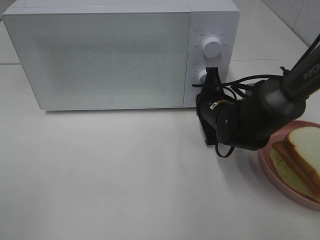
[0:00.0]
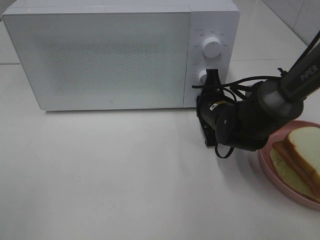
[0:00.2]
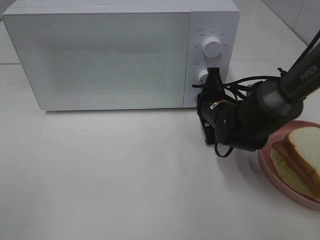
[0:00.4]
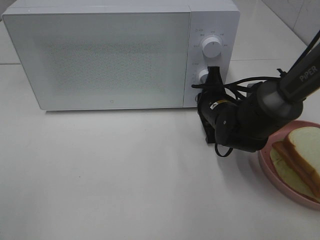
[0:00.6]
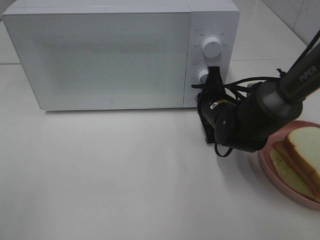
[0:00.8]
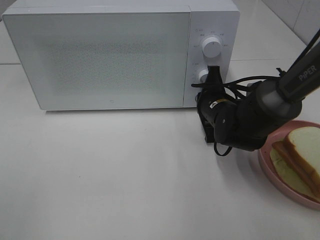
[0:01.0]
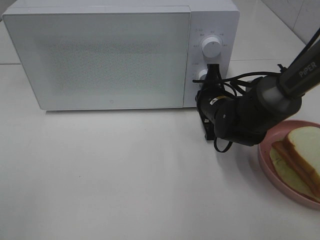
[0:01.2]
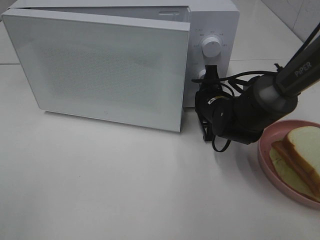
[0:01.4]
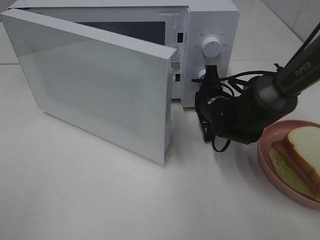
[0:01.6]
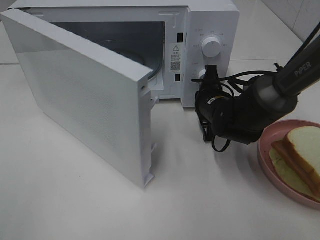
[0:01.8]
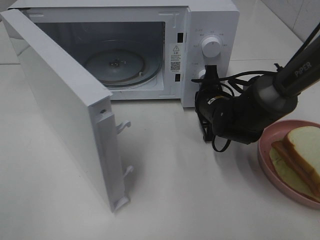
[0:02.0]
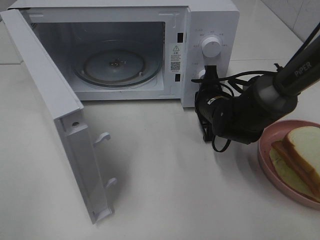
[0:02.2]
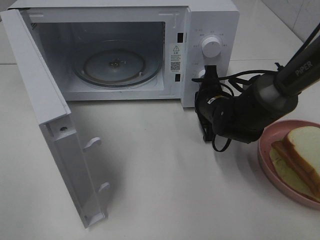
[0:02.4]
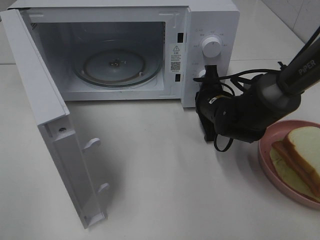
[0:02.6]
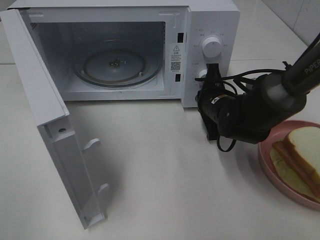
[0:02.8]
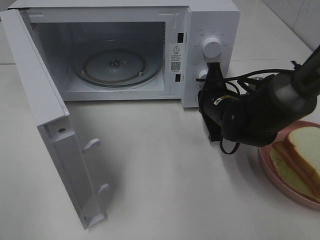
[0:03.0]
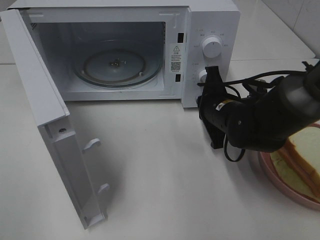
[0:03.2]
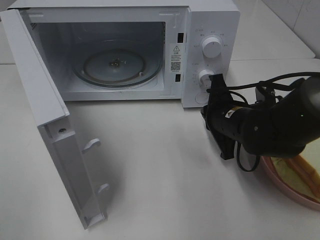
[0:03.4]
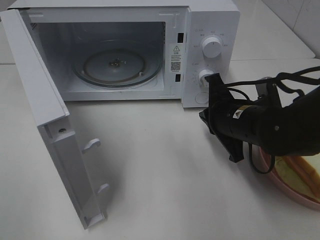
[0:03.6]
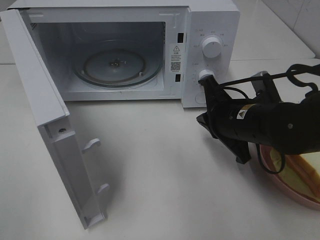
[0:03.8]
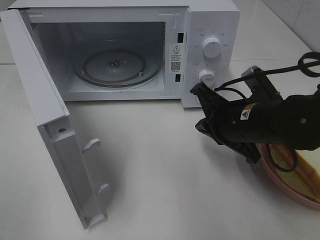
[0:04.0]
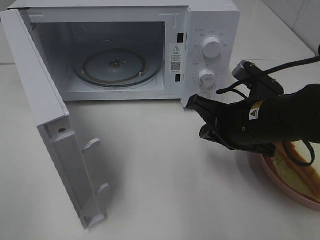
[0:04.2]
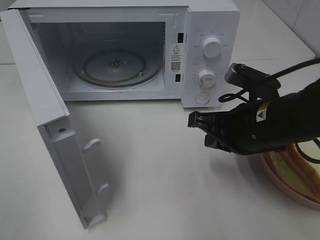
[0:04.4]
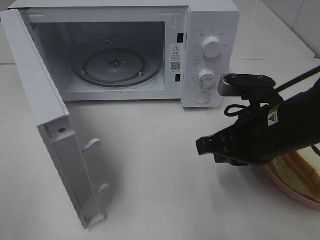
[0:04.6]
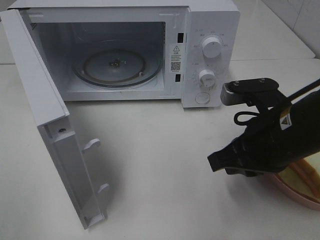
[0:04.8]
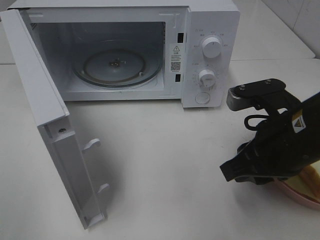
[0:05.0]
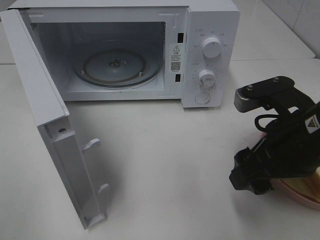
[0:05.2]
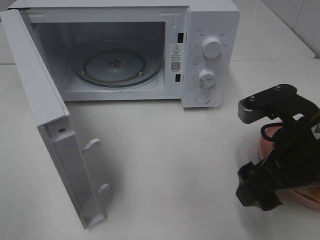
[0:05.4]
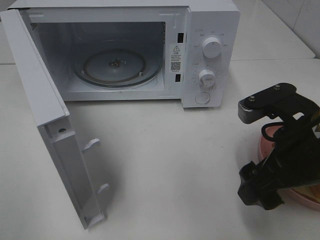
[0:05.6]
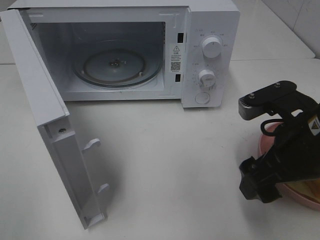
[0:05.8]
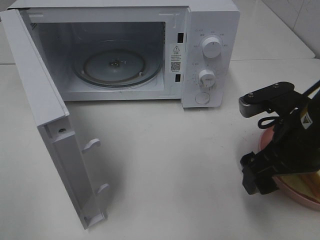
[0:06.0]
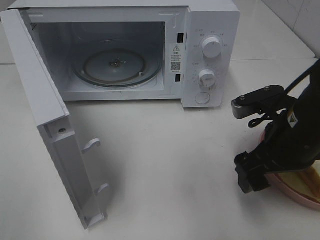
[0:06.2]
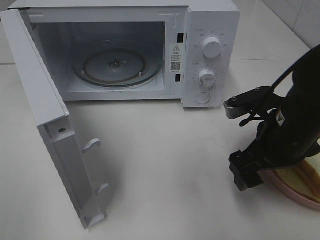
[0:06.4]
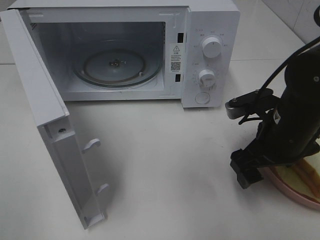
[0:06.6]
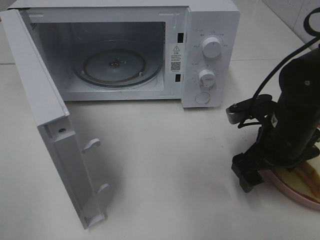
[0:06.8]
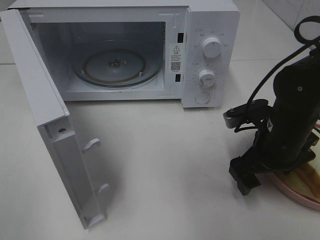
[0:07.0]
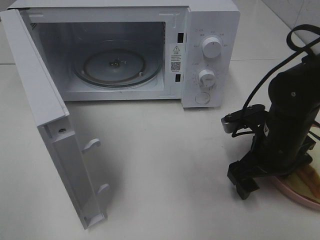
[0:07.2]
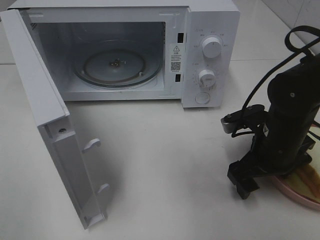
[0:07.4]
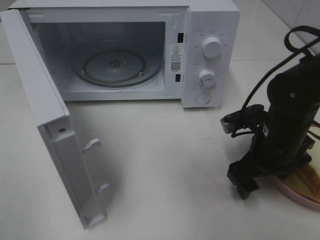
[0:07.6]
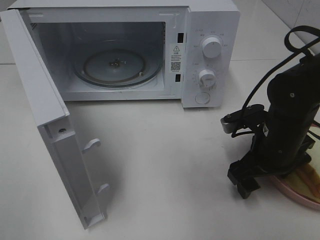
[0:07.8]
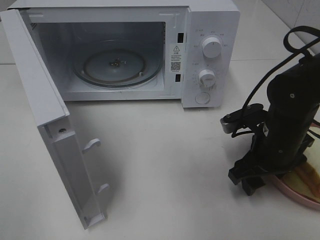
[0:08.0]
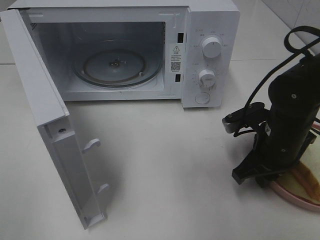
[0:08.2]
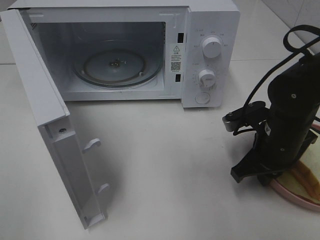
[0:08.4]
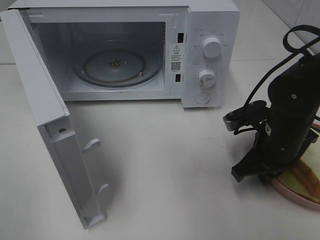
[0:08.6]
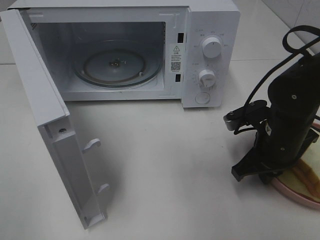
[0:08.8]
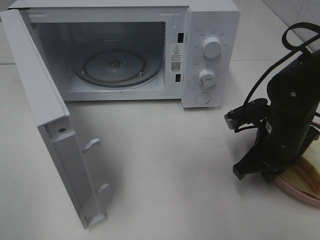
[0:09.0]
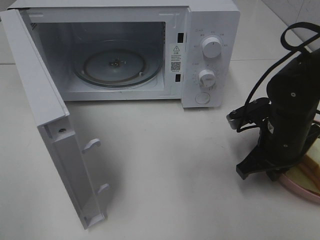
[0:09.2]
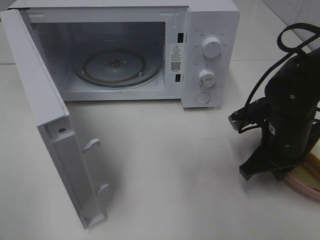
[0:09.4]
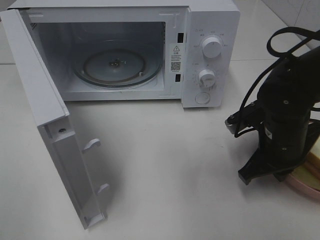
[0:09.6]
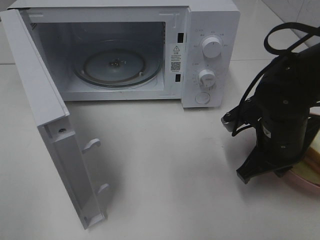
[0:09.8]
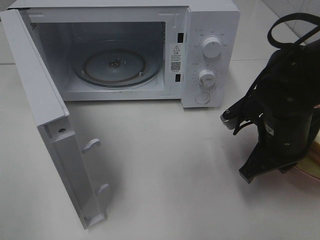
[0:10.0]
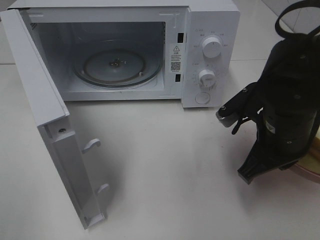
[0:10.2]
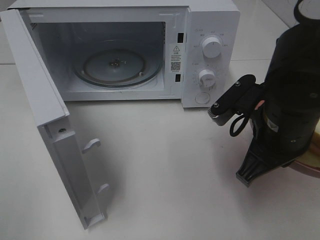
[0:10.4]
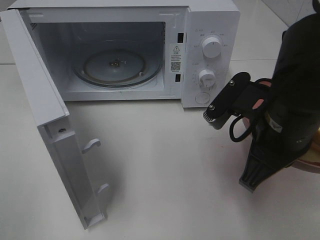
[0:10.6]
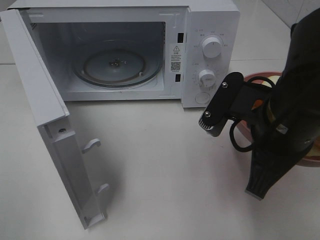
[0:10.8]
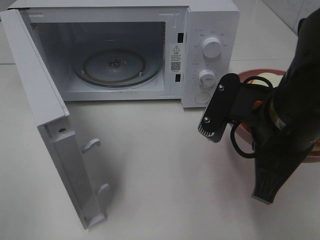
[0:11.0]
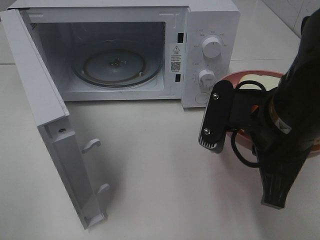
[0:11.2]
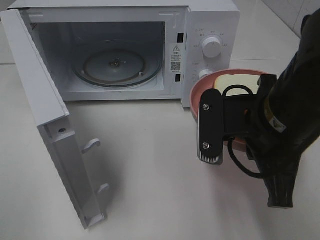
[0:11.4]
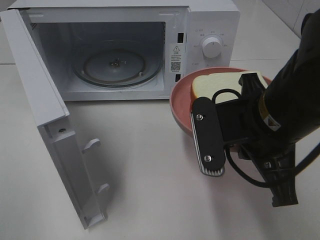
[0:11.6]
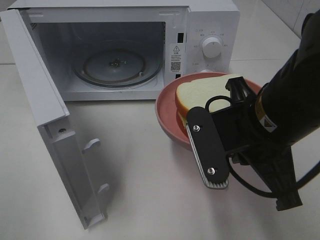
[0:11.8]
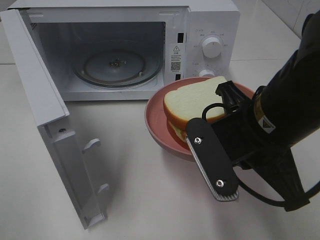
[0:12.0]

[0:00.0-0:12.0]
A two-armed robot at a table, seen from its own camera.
Task of the whole recording: Heat Sandwich.
Step, 0:00.0 to 0:03.0: Right hand: press the switch.
Step, 0:03.2 to 0:09.0: Right hand: grab the plate with the sandwich.
0:00.0 to 0:01.6: The grippers stay close to where they were, moving slightly.
0:03.0 to 0:04.4: The right gripper is displaced backward and upward by roughly 15 cm.
0:04.4 to 0:06.0: The right gripper moves some 5 cm, and opens up.
0:06.0 to 0:07.6: The right gripper moves downward and forward, roughly 10 cm.
0:07.6 to 0:09.0: The right gripper closes.
0:09.0 to 0:10.4: The right gripper shifts approximately 10 cm upward and backward.
0:10.4 to 0:12.0: The right gripper changes place by roughly 5 cm.

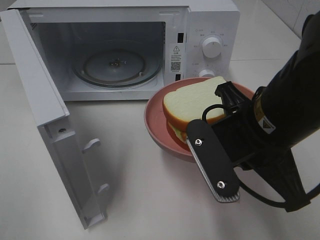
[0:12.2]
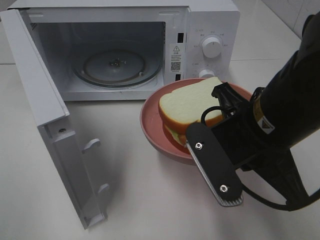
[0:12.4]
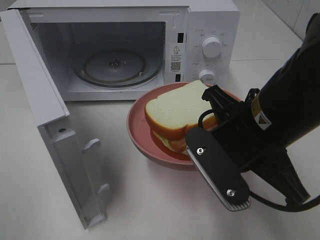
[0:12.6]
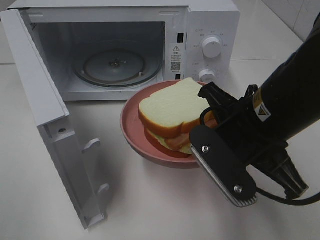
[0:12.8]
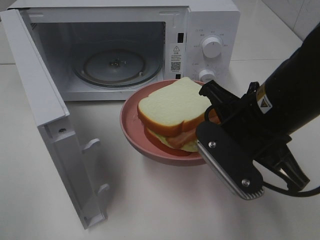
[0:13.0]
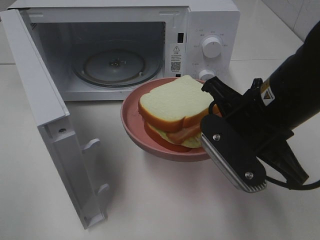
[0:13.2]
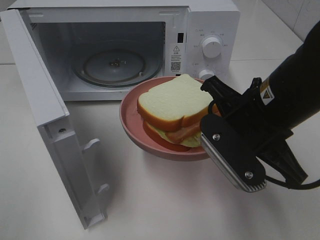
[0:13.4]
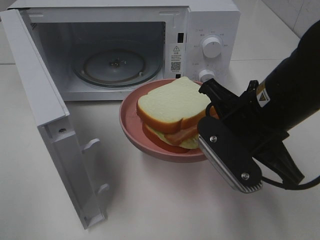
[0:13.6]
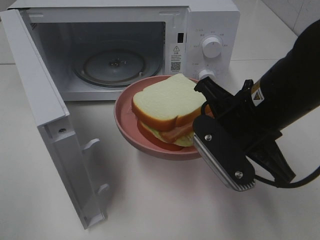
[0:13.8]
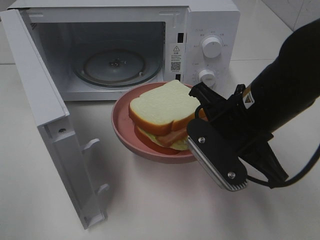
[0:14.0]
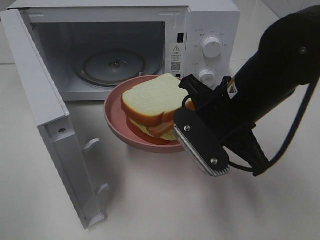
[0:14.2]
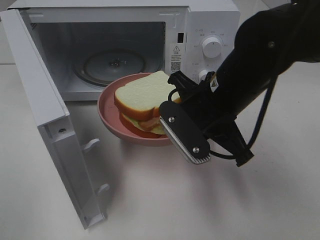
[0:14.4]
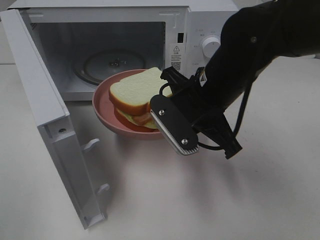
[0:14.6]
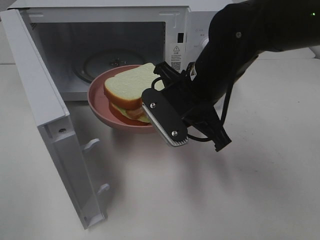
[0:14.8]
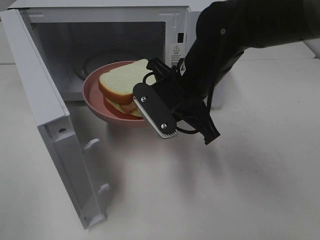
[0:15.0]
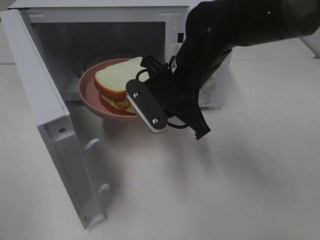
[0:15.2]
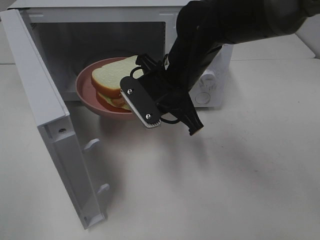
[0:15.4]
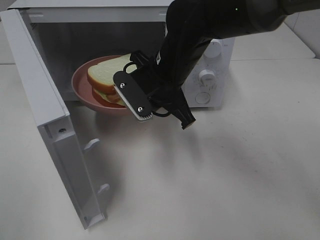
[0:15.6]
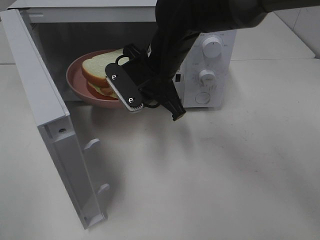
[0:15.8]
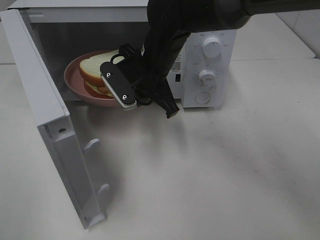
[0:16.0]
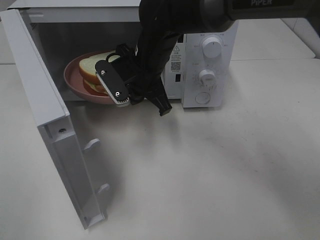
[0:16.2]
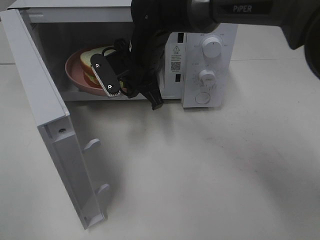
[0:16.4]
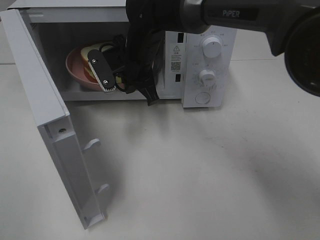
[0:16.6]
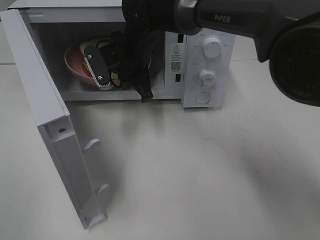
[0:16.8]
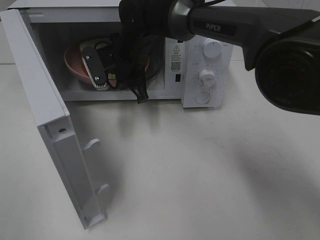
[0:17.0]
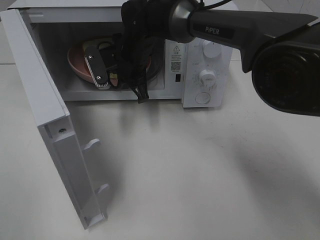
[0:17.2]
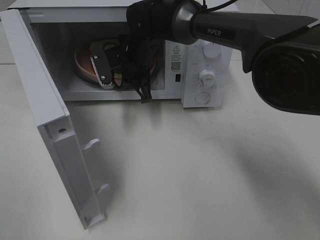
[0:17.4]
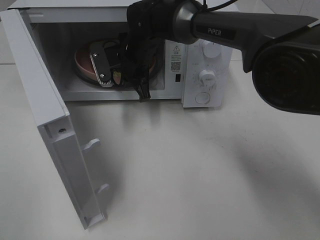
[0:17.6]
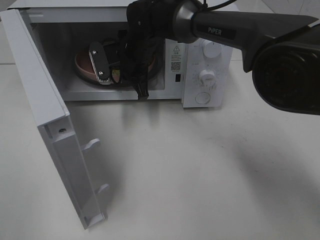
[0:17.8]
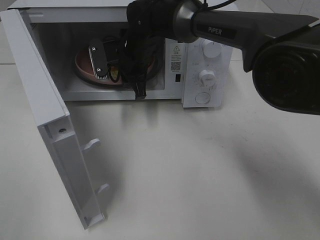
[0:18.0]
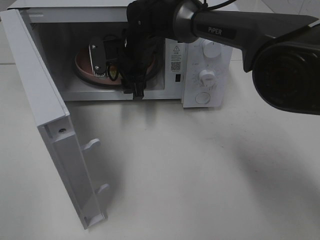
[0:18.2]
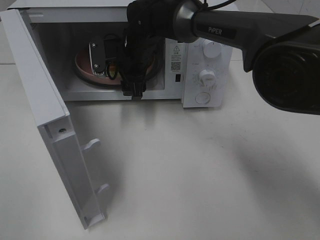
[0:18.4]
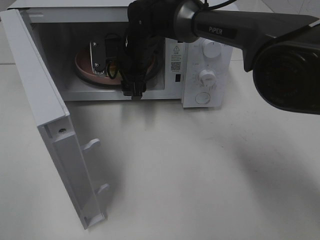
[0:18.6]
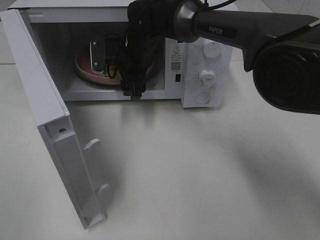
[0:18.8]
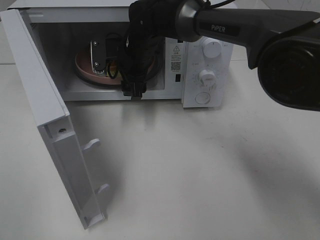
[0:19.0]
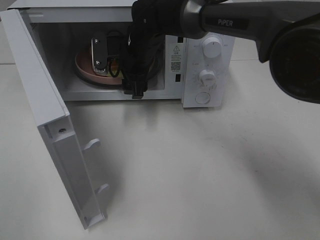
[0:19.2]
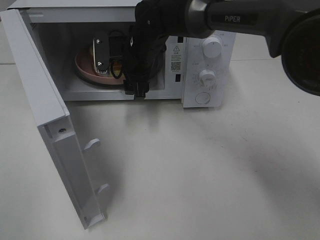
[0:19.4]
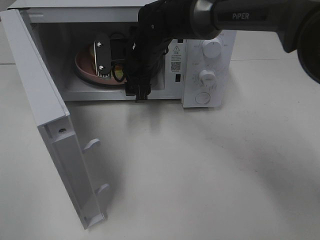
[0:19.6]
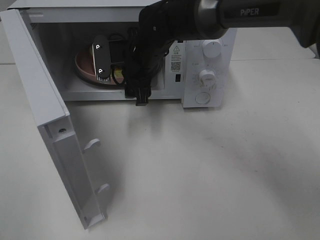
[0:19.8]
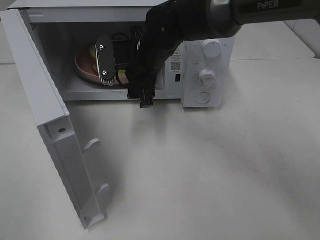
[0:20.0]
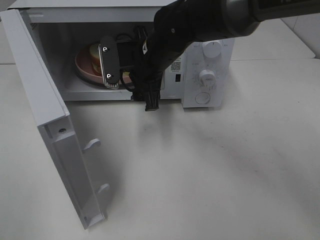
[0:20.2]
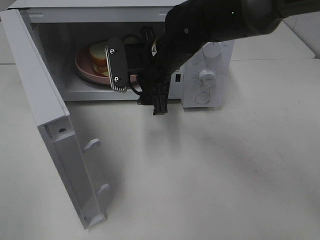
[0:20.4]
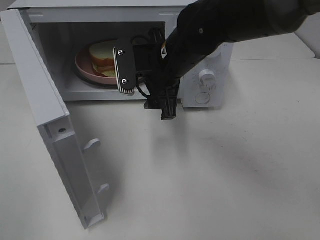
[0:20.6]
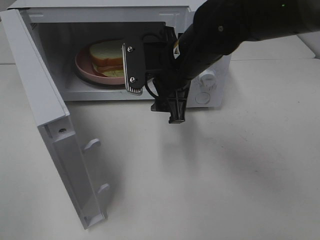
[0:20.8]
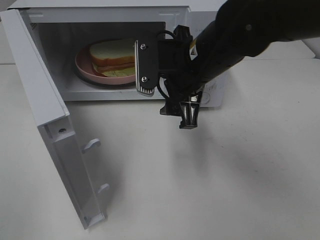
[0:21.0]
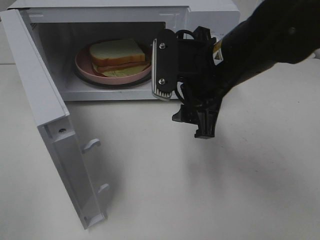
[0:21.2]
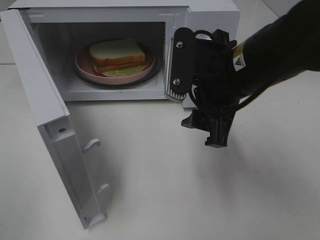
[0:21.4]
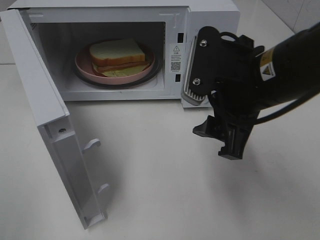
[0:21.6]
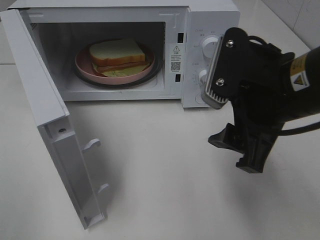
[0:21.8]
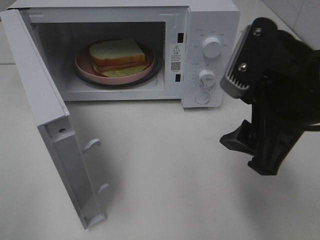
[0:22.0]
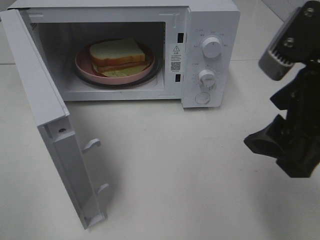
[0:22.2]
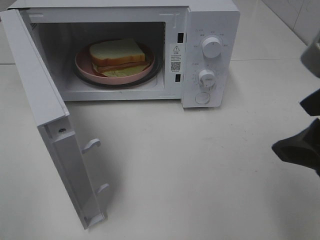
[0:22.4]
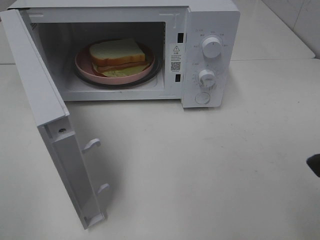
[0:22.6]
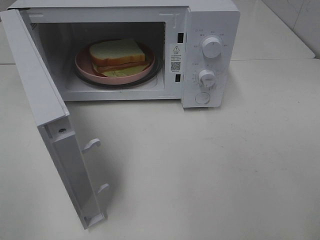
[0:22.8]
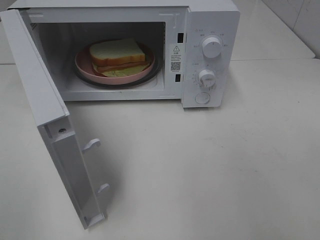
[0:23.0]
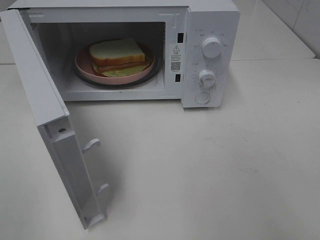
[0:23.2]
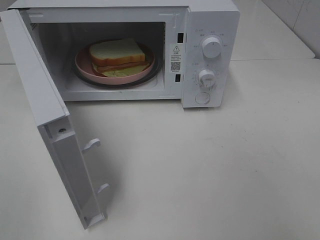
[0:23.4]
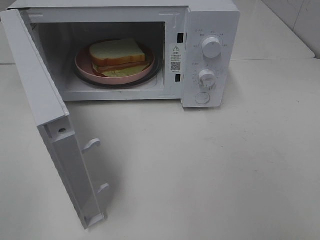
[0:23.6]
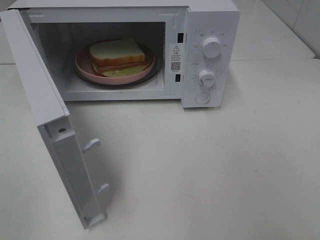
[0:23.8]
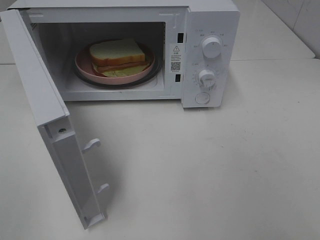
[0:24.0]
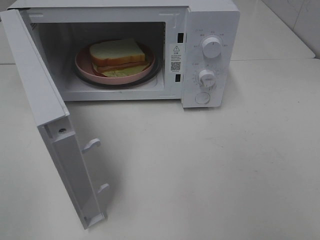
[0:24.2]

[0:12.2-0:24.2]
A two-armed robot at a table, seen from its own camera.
Task of the whole recording: Heat Sandwich.
Step, 0:12.2 to 0:19.8: Right hand: place the plate in the microwave.
0:12.2 to 0:13.8: The grippers move only a little.
0:13.8 to 0:15.2: The right gripper travels forward and to the left by approximately 15 cm.
0:15.2 to 0:16.6: The right gripper moves forward and to the left, some 15 cm.
0:16.6 to 0:18.2: The right gripper opens its fingers.
0:18.2 to 0:19.8: The grippers make only small movements.
0:19.8 to 0:21.2: The right gripper goes some 20 cm backward, to the right and upward.
0:21.2 to 0:22.6: The right gripper is displaced backward, to the right and upward by some 20 cm.
0:22.6 to 0:24.2: The right gripper moves backward and to the right, approximately 15 cm.
